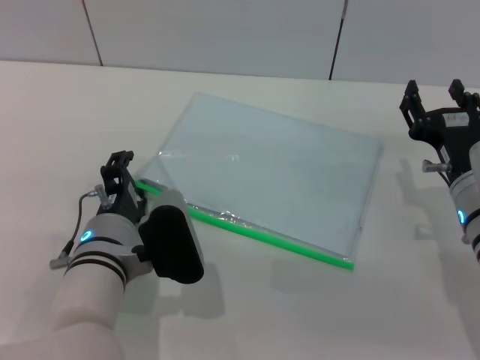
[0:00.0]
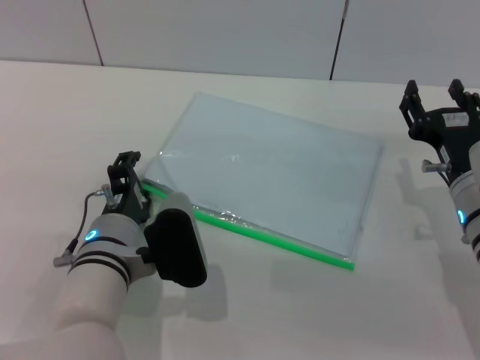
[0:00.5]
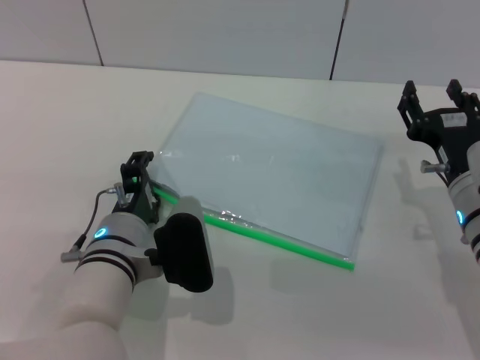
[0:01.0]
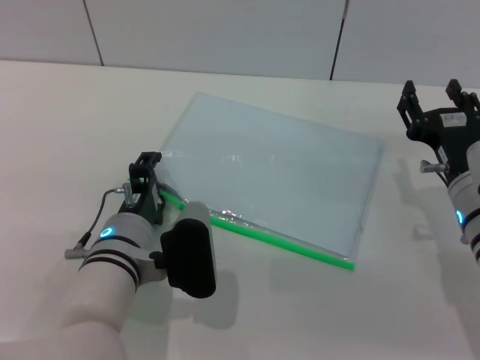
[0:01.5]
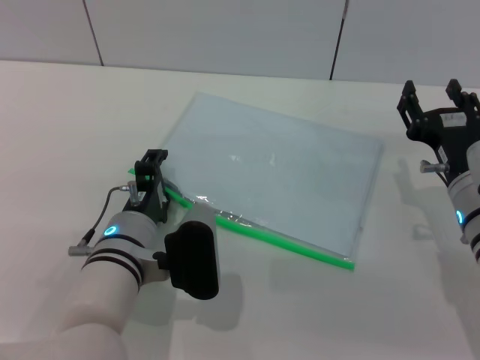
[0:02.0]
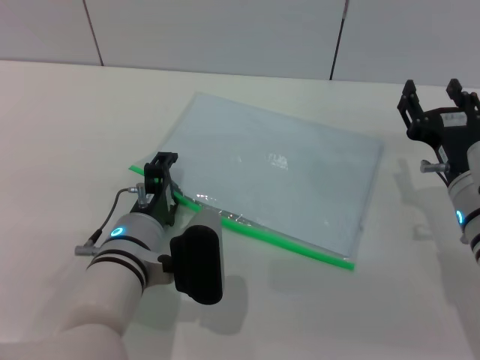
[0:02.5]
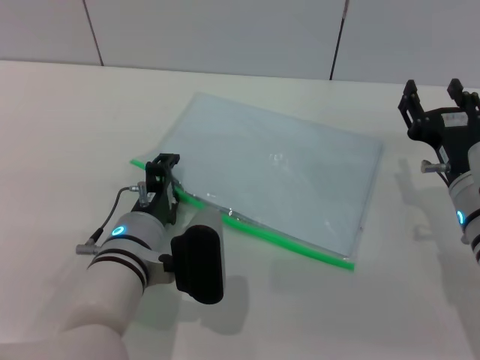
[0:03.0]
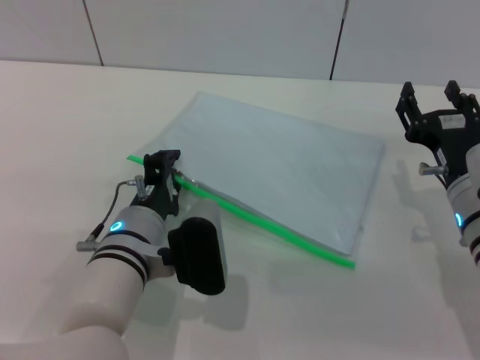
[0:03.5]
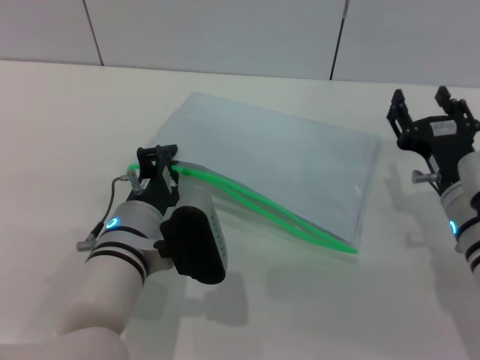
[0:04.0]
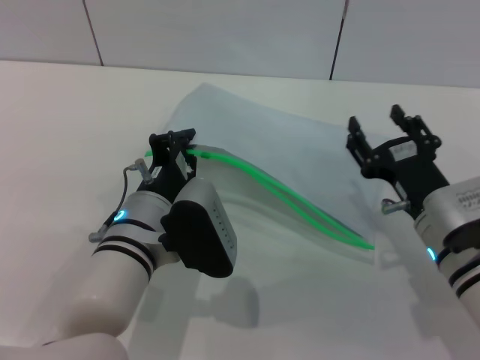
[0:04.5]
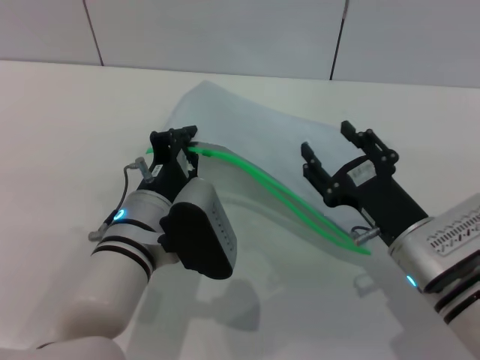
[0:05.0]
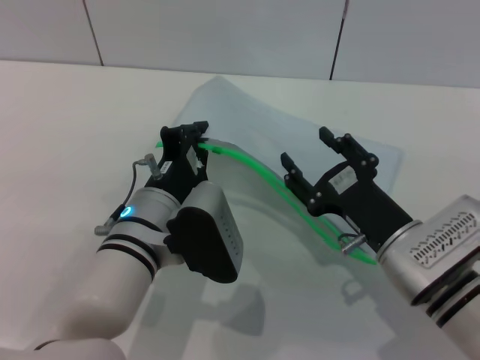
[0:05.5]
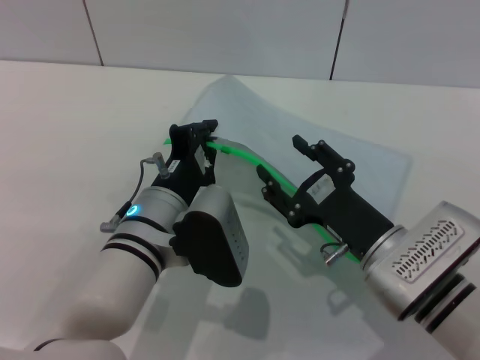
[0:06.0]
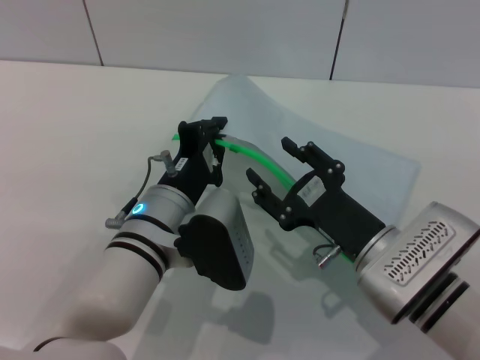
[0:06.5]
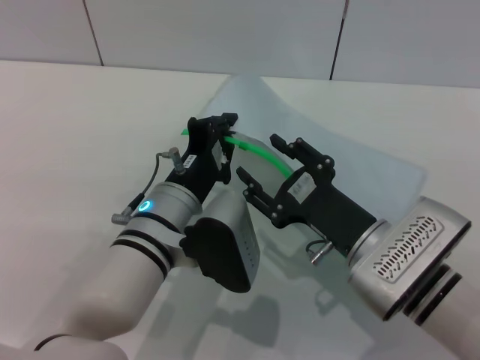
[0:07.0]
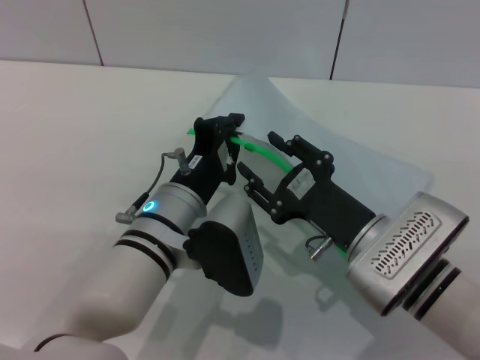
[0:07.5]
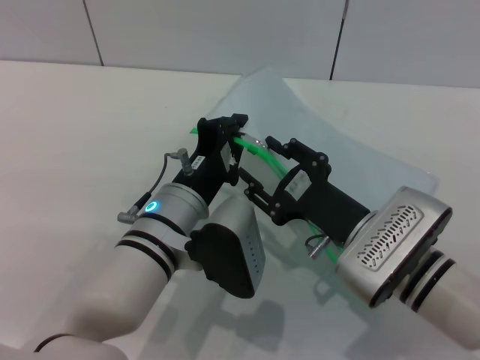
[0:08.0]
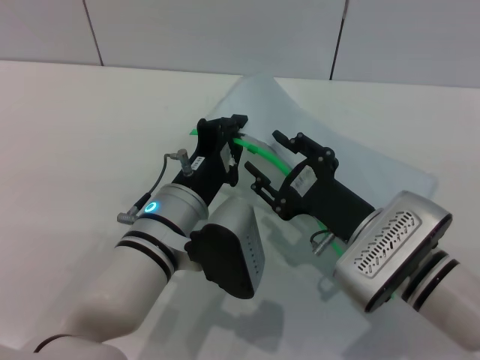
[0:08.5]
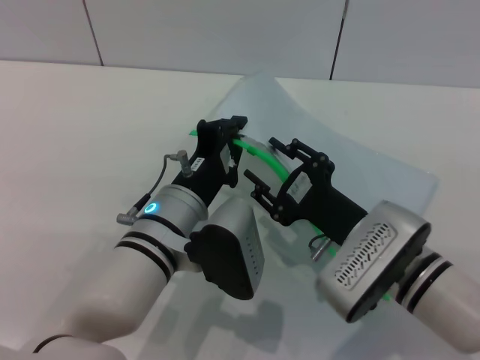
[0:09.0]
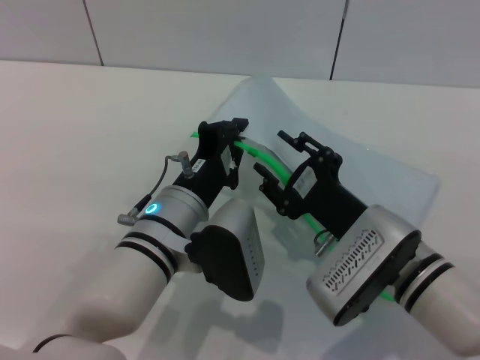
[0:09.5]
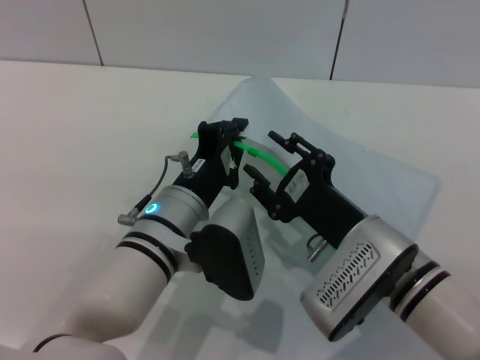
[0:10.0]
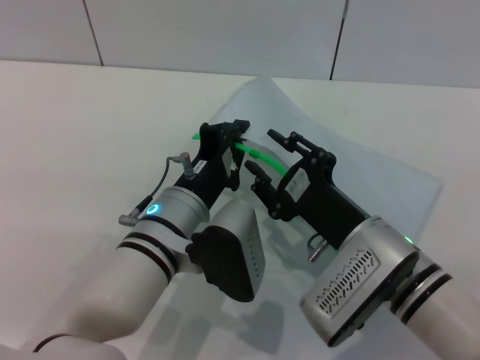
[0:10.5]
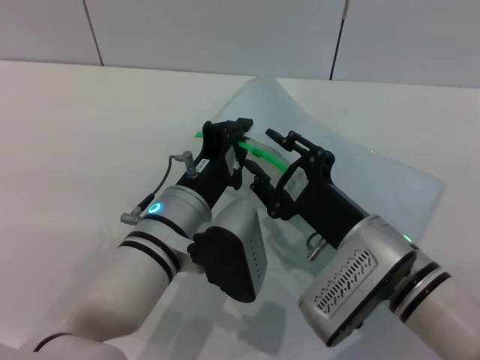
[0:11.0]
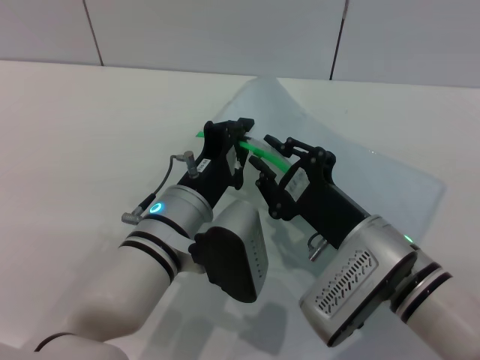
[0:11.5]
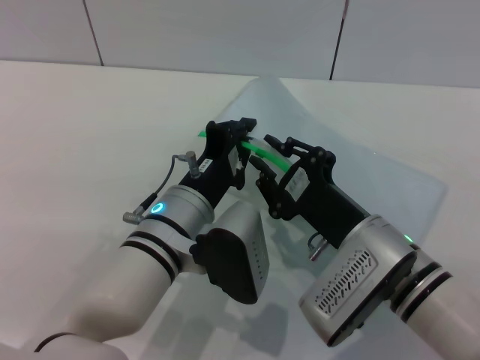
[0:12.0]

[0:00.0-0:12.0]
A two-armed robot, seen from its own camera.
Step, 0:00.0 to 0:05.5: Pick up the transparent plastic bag with the left gripper.
0:00.0 to 0:02.0: There are only small adjustments of the grippers.
0:02.0 to 0:04.0: The left gripper closes up.
0:04.0 to 0:06.0: The right gripper travels to the left by about 5 cm.
0:10.0 to 0:12.0: The right gripper closes its fingers.

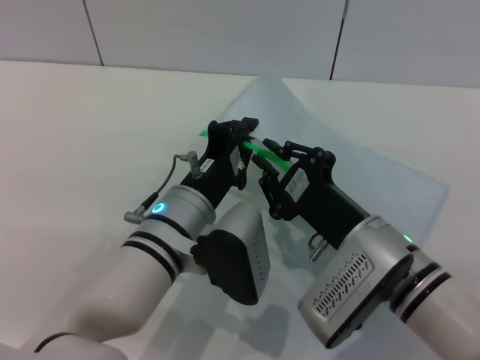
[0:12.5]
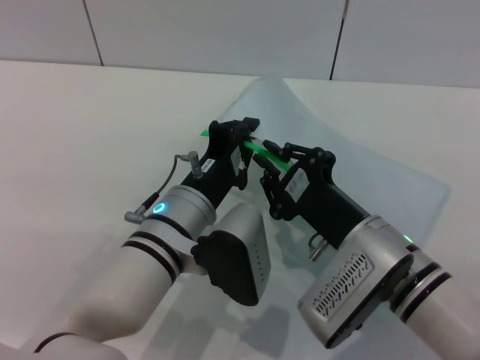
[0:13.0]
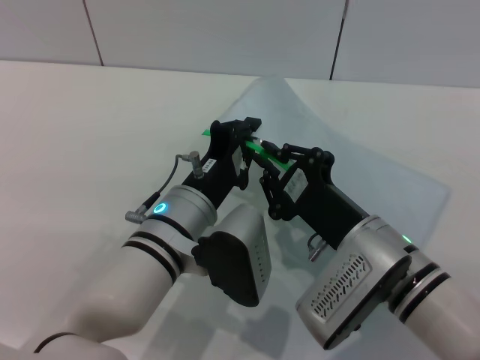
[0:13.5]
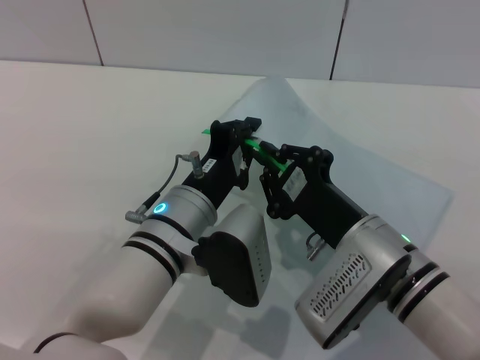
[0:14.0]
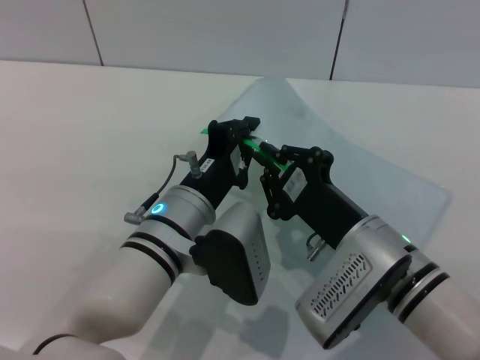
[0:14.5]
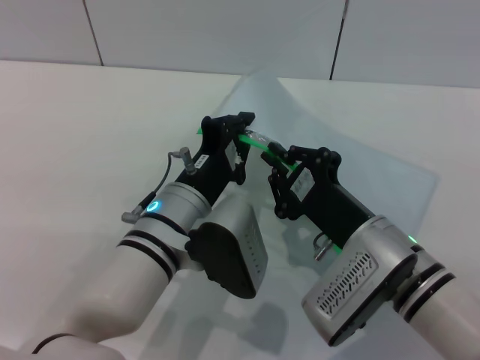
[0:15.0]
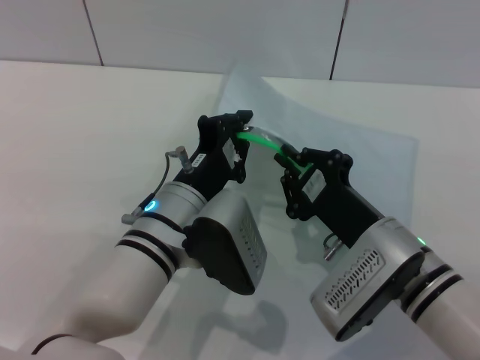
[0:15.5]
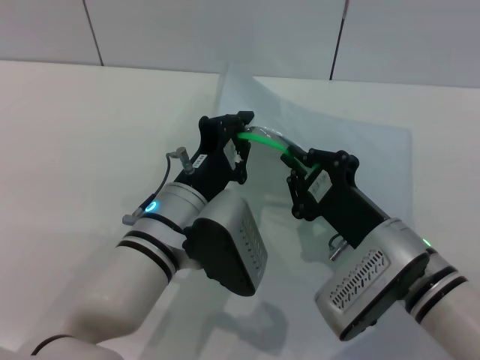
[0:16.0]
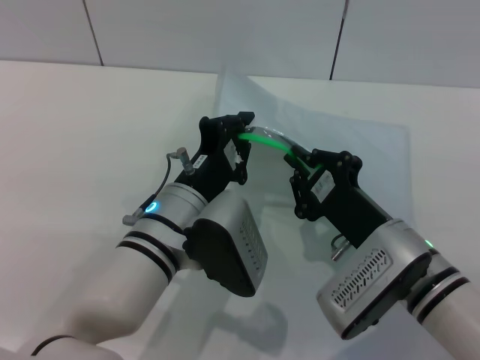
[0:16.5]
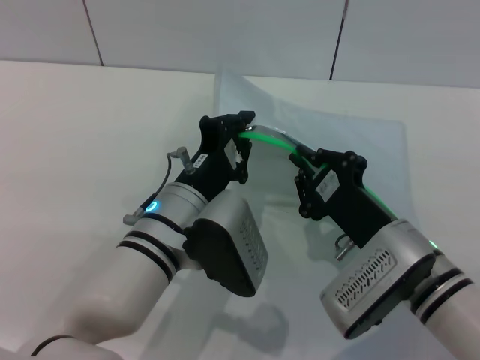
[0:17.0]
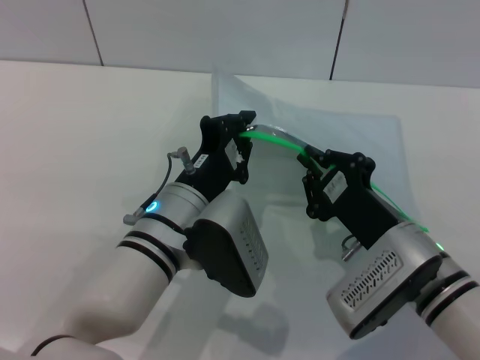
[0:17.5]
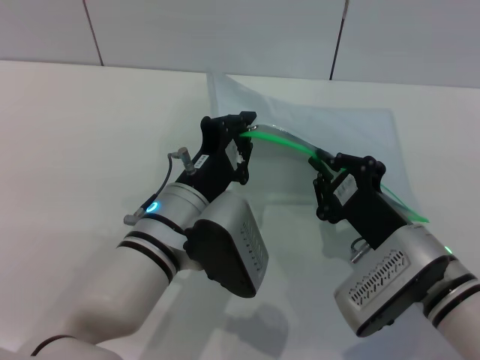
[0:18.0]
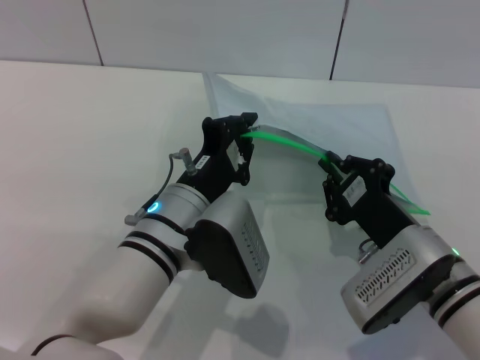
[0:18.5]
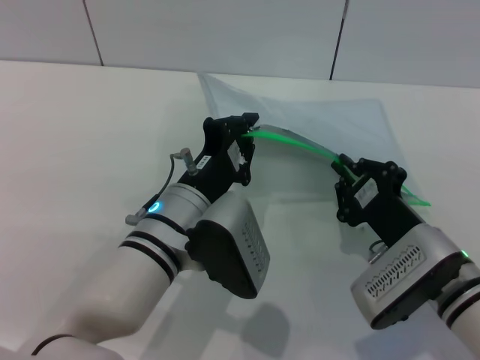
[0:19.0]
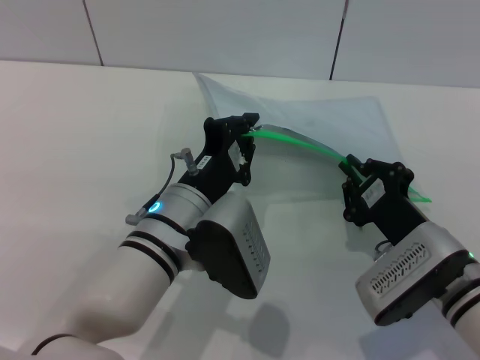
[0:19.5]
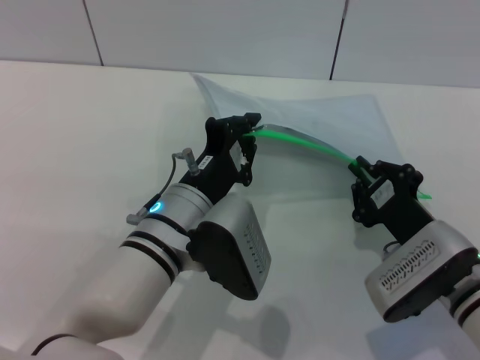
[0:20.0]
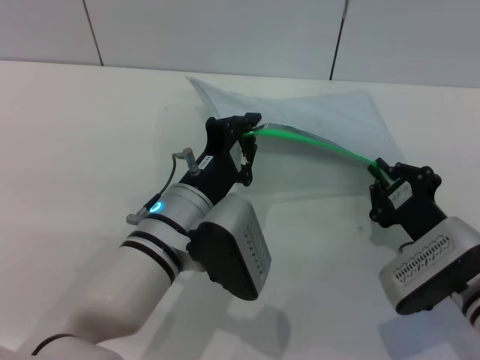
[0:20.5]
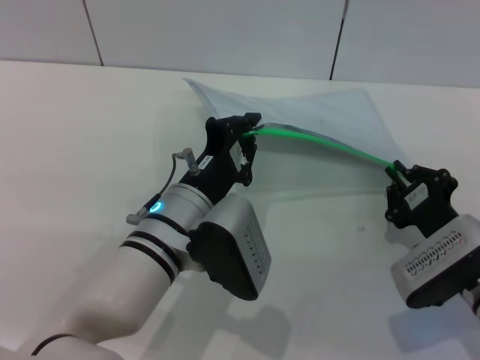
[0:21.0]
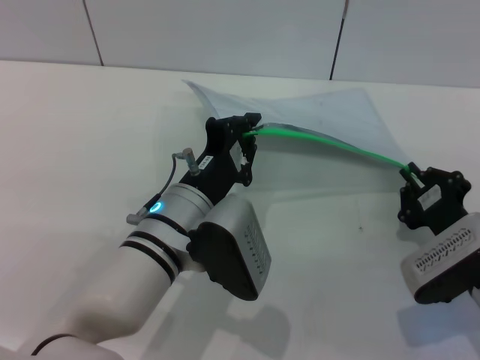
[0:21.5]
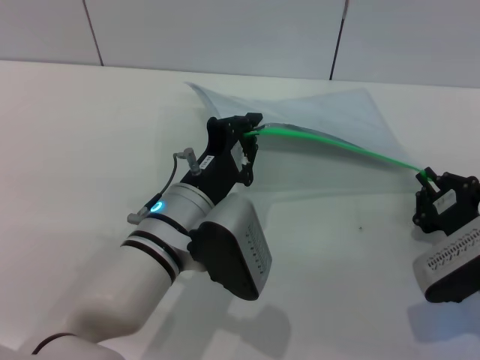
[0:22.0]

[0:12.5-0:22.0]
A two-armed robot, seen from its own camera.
0:12.5 to 0:14.5: Neither gripper changes place.
0:14.5 to 0:18.0: There are only small adjustments of the grippers.
0:18.0 to 0:20.0: The grippers stay close to where they were, moving slightly.
0:20.0 to 0:22.0: The right gripper goes some 5 cm to the right.

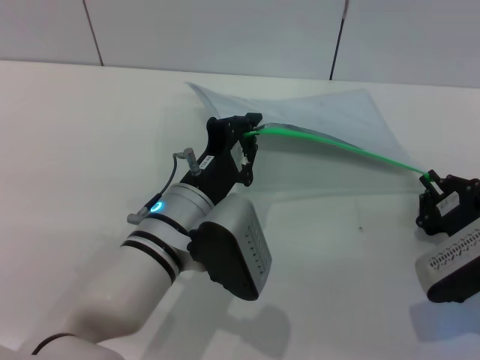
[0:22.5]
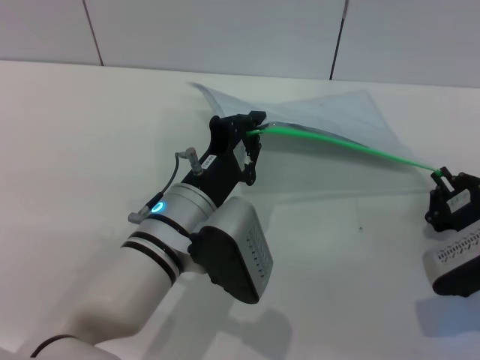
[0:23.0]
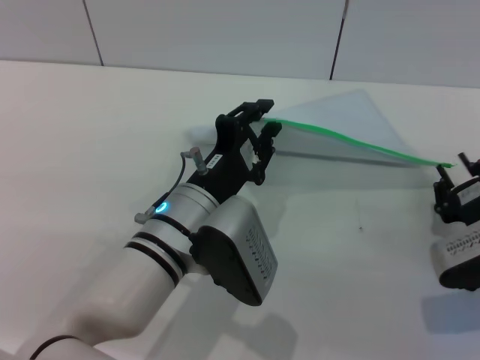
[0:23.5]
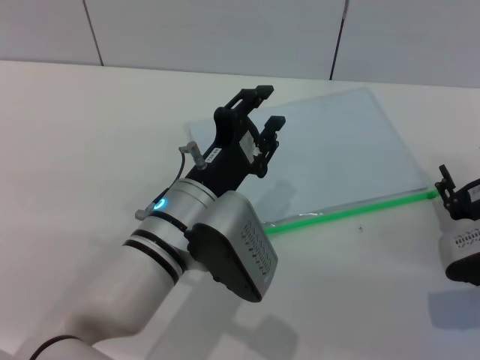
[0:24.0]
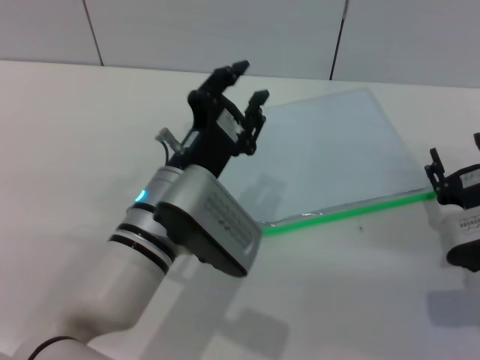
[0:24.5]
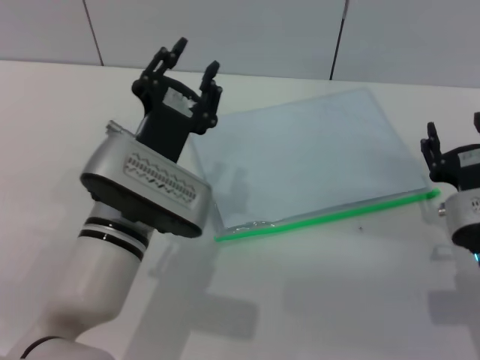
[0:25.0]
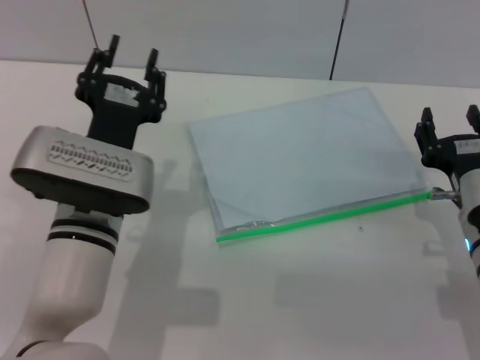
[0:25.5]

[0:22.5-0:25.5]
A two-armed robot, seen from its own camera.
Step, 0:23.5 to 0:24.0: Place the transparent plastic bag.
0:22.5 to 0:24.0: The right gripper opens; the left gripper opens up.
0:24.0 to 0:25.5: The left gripper heads to the left, covering some 5 cm, while the right gripper changes place by roughly 5 cm.
